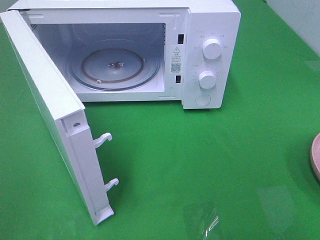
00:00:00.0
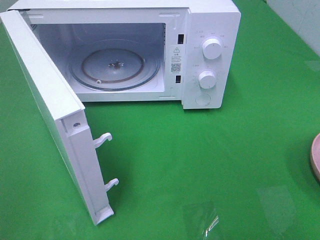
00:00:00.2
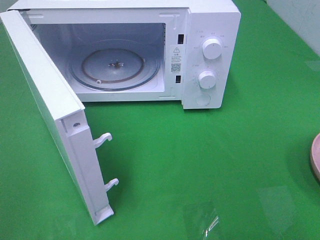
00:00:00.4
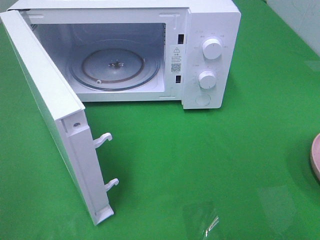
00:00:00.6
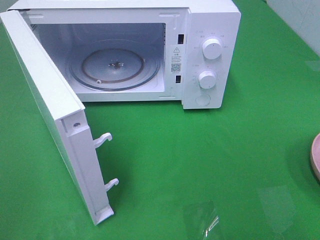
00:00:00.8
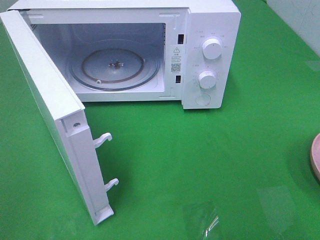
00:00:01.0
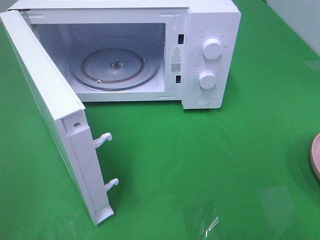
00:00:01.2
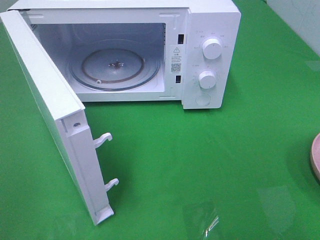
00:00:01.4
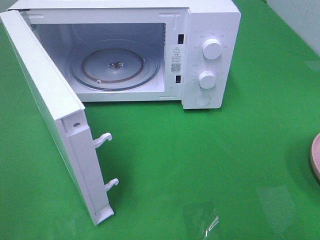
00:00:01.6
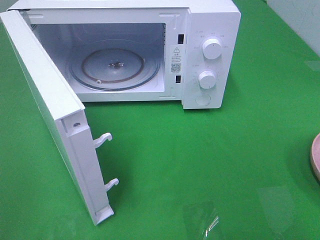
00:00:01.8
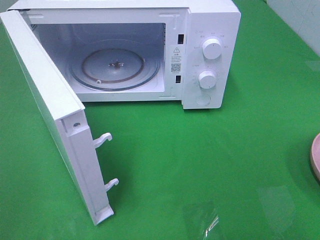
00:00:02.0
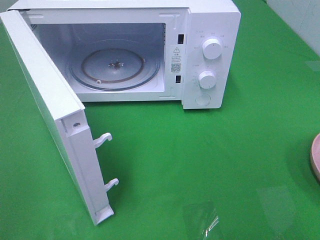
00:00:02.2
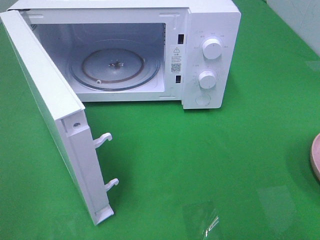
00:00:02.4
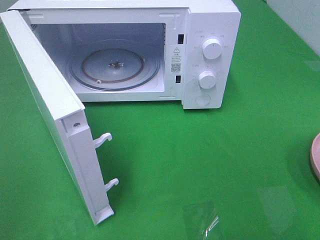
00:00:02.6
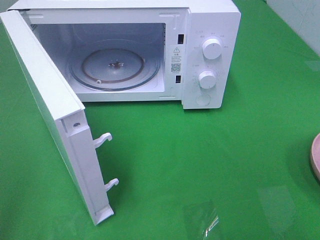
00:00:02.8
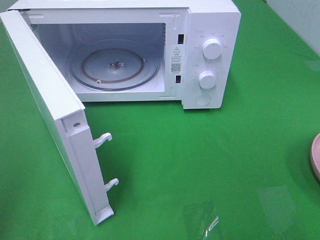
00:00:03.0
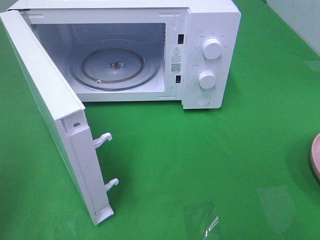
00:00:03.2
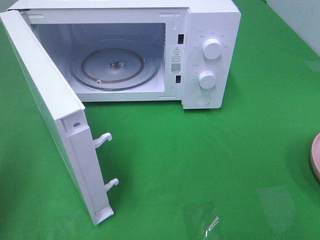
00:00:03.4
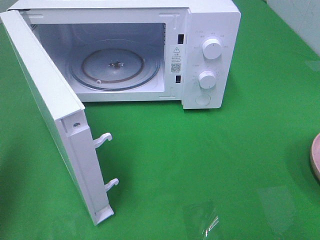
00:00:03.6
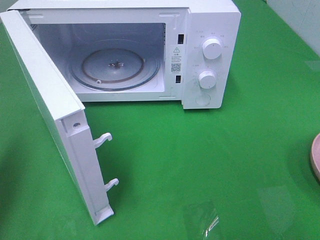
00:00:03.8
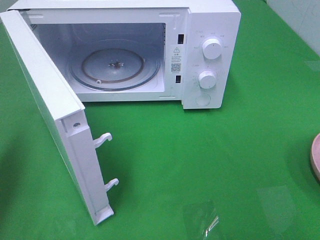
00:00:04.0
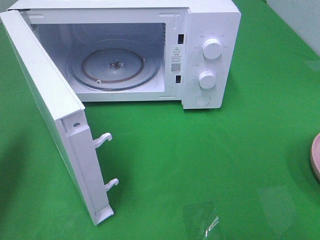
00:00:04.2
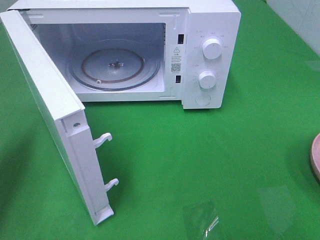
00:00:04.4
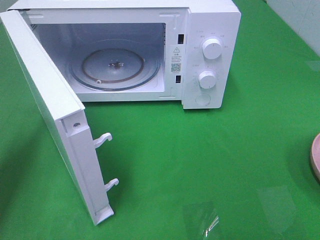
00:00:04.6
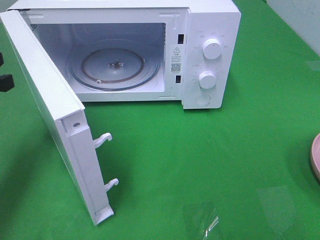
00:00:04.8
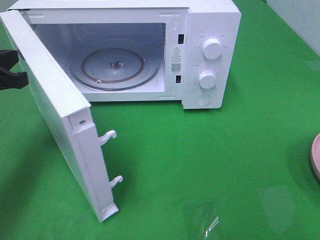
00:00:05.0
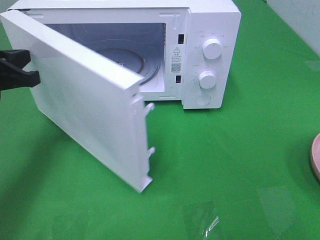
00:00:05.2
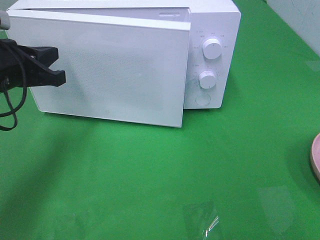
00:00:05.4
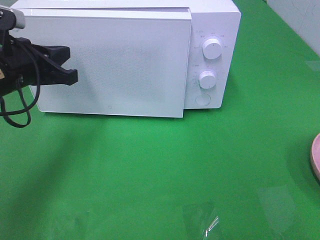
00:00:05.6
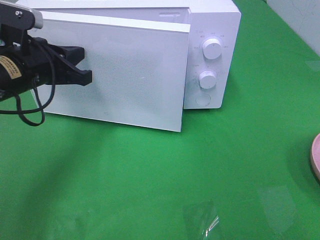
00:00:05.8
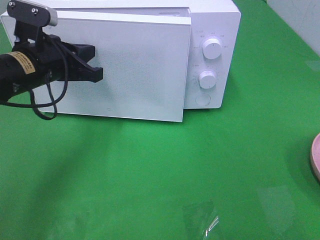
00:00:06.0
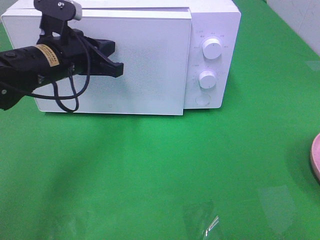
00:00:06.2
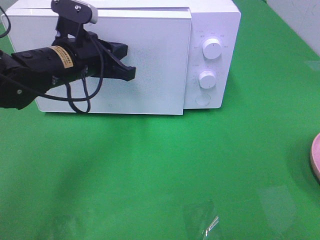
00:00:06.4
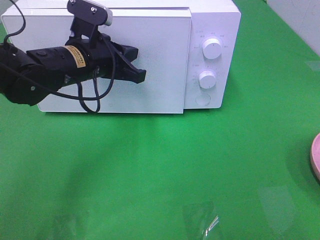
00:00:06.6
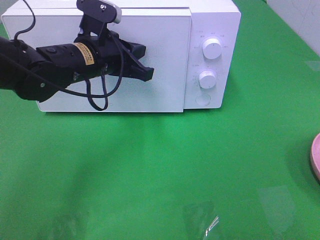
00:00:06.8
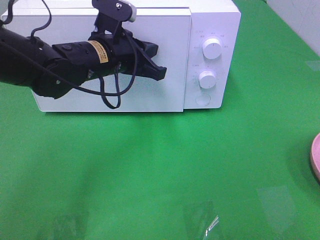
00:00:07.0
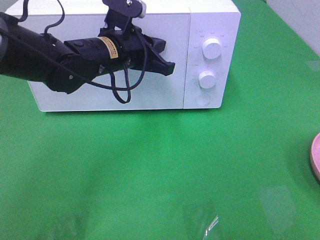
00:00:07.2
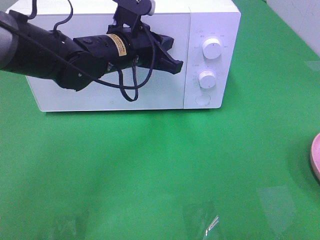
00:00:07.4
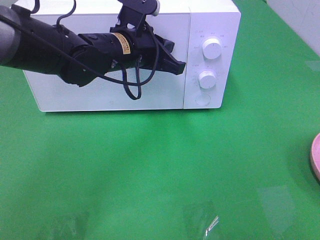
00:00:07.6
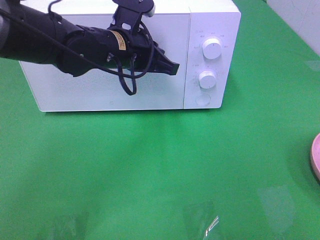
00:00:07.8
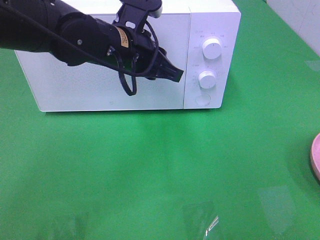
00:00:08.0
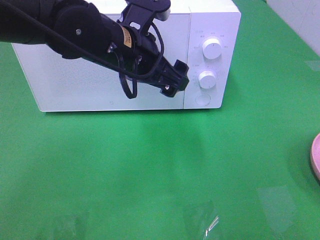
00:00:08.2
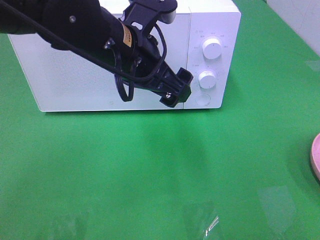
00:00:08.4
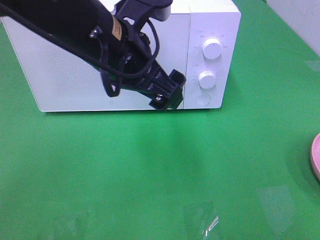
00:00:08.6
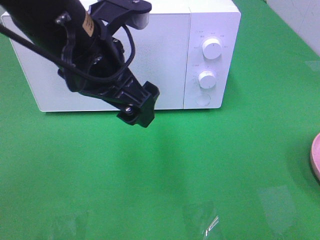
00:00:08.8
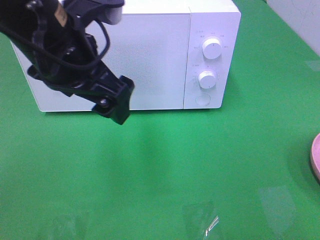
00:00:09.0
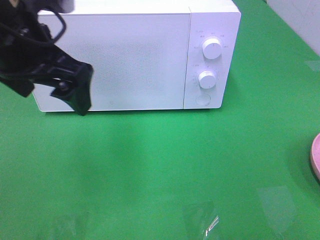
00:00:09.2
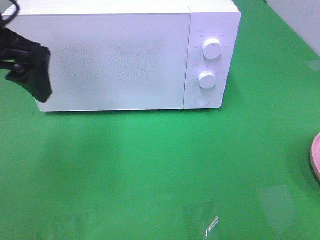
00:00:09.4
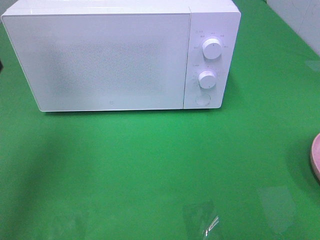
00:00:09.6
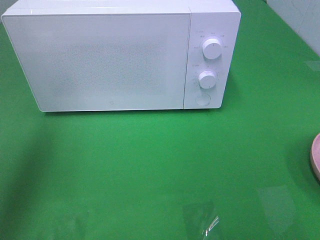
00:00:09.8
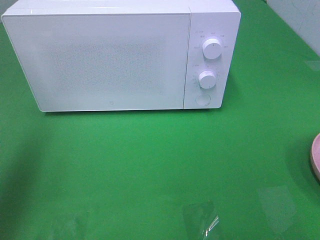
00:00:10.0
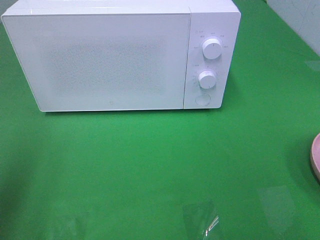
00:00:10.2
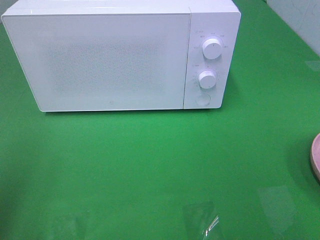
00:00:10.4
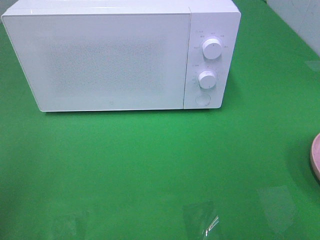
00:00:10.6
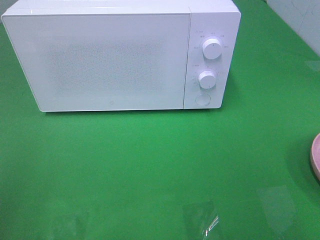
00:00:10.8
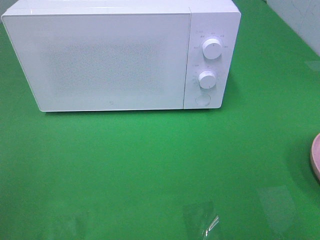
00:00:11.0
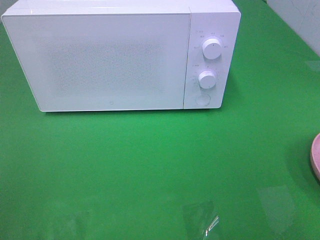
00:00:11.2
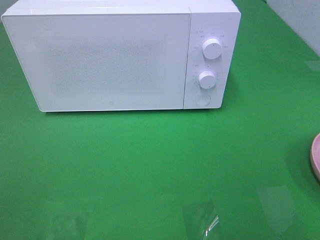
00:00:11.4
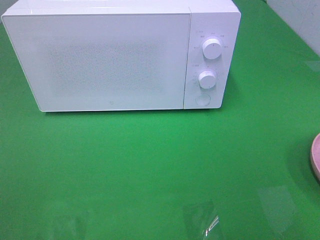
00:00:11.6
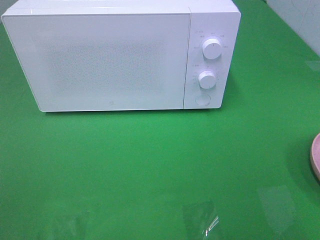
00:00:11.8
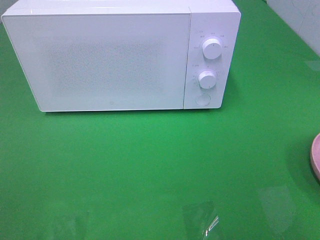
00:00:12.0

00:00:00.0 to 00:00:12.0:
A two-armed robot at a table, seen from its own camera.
Task of the whole recording: Heat the burger.
Step, 00:00:00.0 to 00:00:07.8: Left hand: close the microwave door.
00:00:00.0 to 00:00:01.6: Neither gripper changes place.
00:00:03.0 to 00:00:04.4: The left gripper travels forward and downward by about 20 cm.
00:00:04.4 to 00:00:06.0: The left gripper travels to the right and forward by approximately 15 cm.
00:00:06.0 to 00:00:07.6: The left gripper is displaced to the right by some 10 cm.
00:00:07.6 to 00:00:09.0: The left gripper travels backward, upward and to the left by some 15 cm, and opens up.
00:00:09.0 to 00:00:10.4: The left gripper goes some 25 cm to the left and backward.

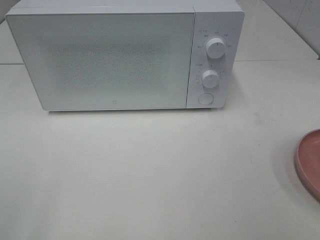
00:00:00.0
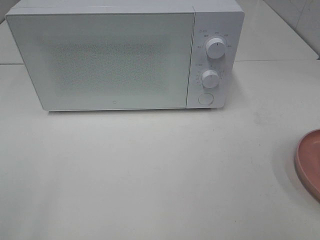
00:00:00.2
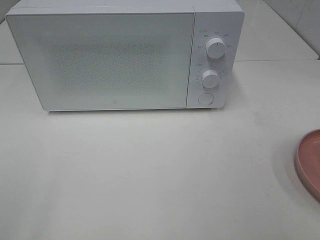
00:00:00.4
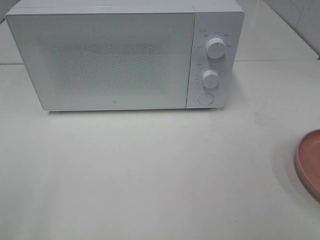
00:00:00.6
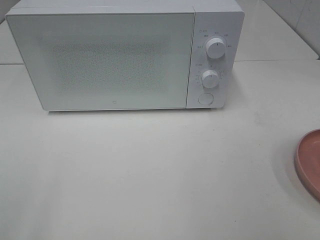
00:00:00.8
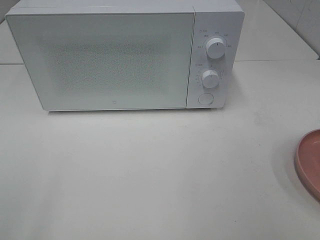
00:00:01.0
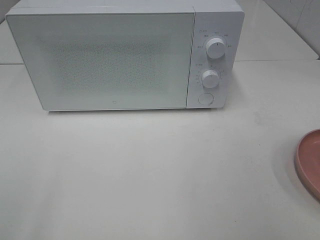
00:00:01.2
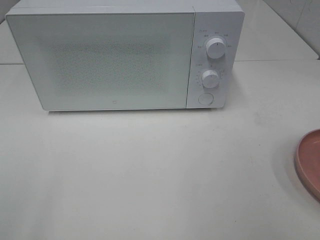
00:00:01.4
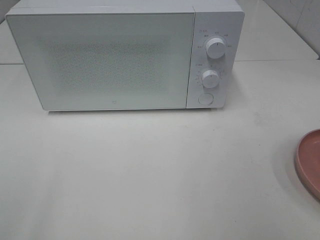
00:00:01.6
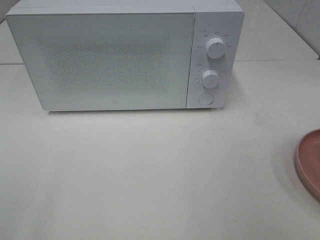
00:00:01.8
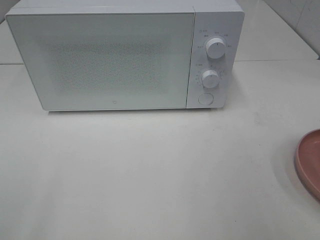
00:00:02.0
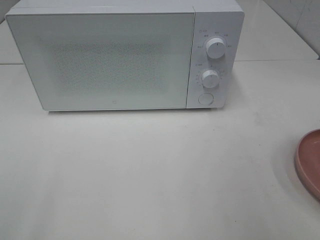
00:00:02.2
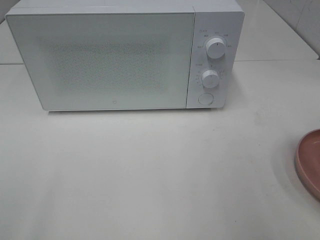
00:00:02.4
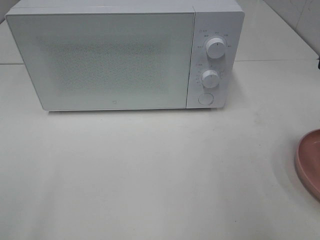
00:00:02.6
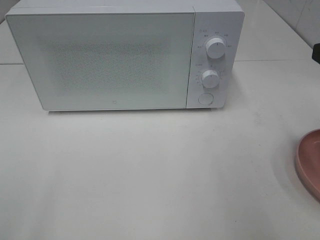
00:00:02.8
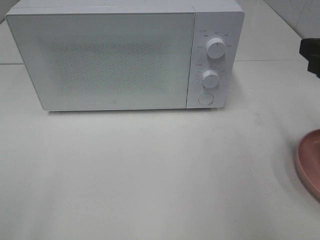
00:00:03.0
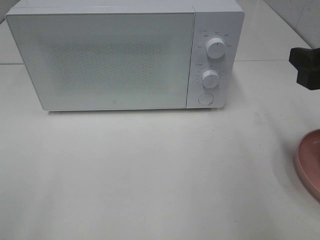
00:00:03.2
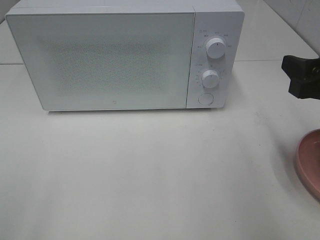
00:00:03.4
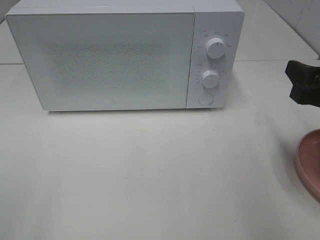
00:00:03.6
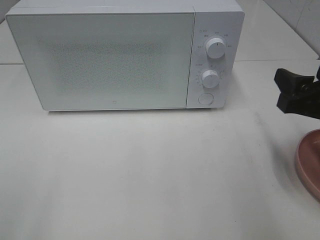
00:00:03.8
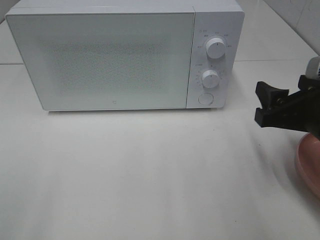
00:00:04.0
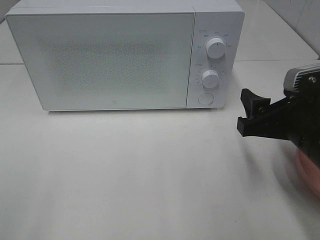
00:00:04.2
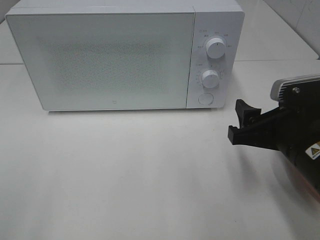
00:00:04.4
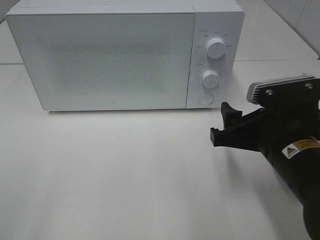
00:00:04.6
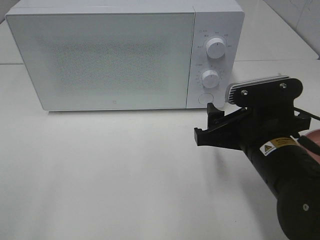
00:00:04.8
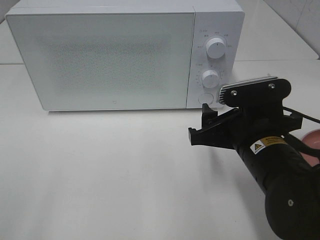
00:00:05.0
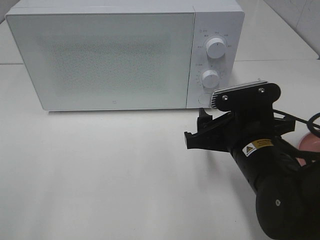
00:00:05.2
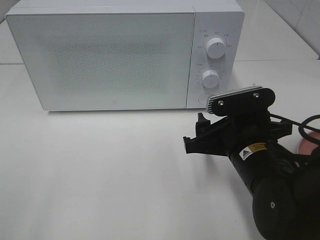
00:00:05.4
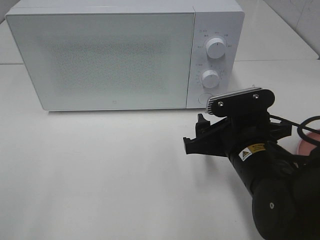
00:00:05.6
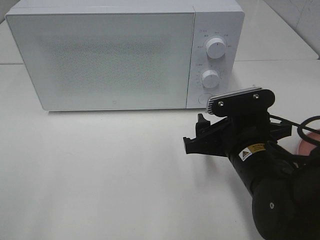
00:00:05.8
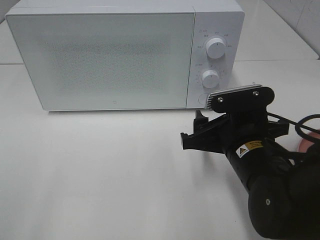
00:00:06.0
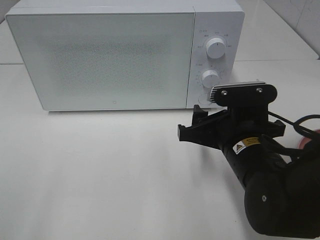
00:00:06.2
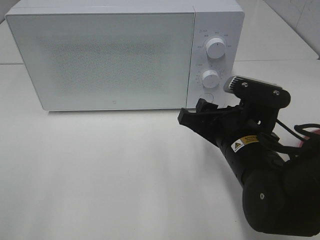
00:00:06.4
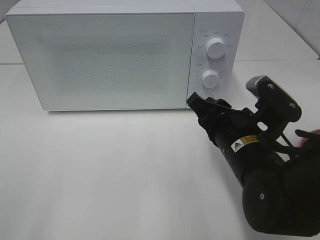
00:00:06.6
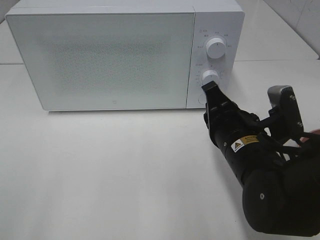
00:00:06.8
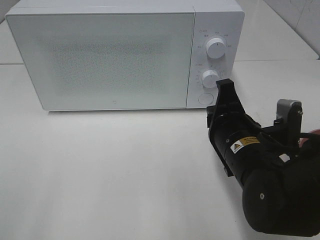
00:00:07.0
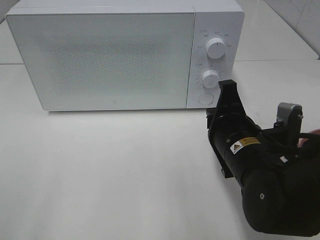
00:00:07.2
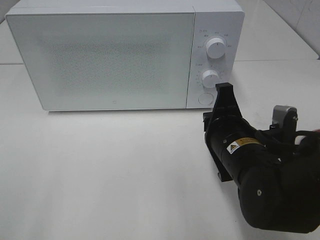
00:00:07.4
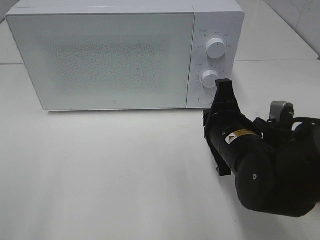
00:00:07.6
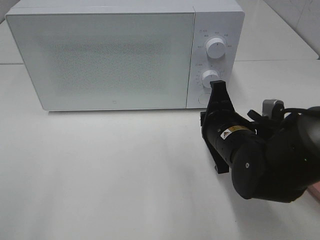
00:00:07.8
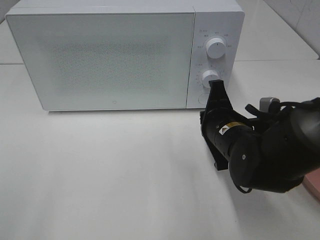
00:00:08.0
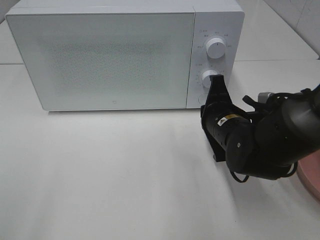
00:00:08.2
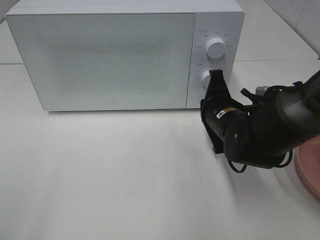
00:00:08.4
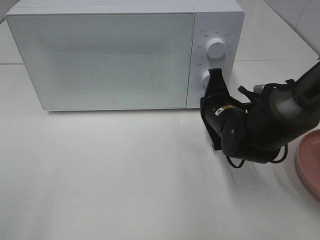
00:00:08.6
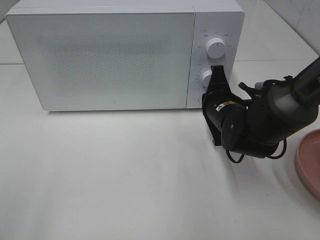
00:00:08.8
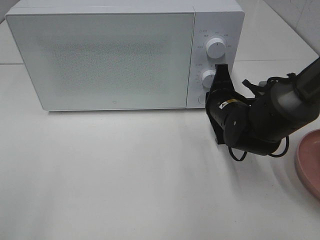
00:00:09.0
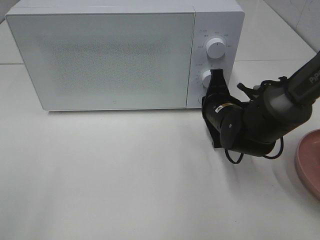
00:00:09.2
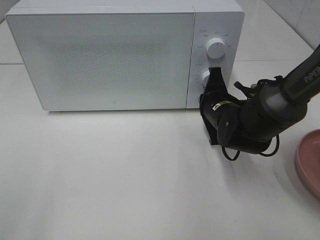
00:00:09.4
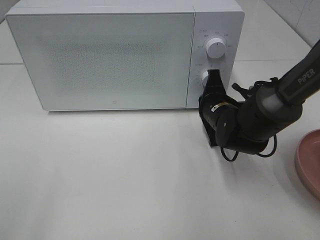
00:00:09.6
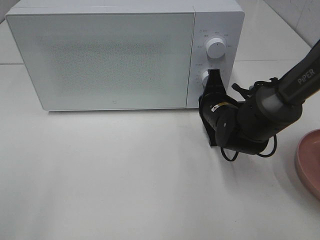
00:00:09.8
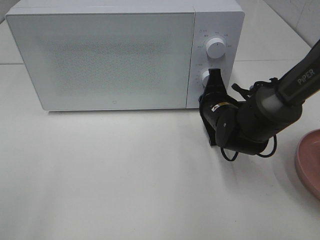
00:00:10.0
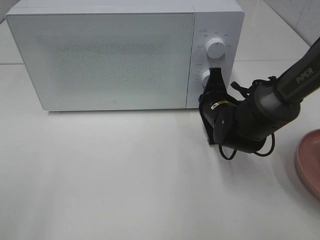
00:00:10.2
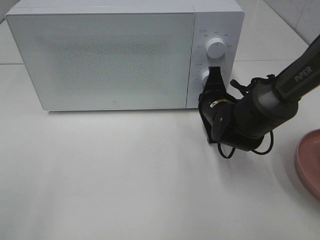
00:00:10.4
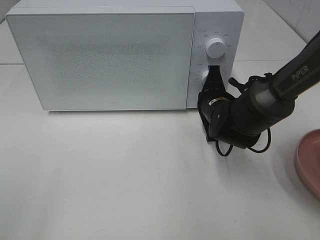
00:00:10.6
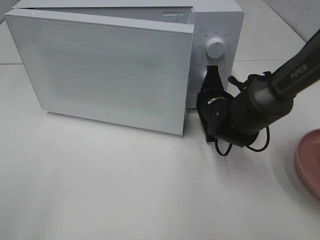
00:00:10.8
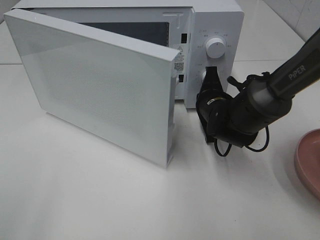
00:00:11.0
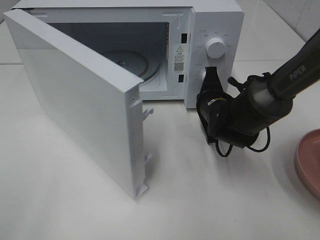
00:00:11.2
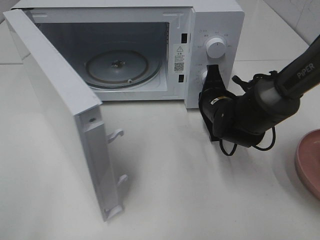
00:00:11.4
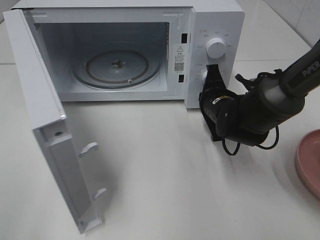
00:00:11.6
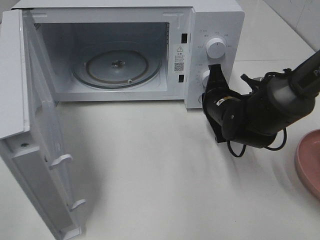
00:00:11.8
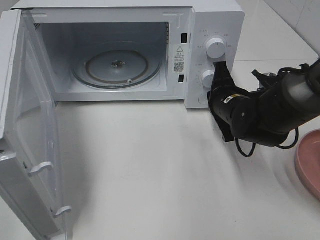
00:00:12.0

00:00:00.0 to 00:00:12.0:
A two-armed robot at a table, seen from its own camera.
Task of the whole recording: Heat the burger.
Step, 00:00:00.0 to 00:00:12.0: Right hand: press the switch.
00:00:01.6 to 00:00:03.0: The right gripper moves forward, about 15 cm.
00:00:03.0 to 00:00:04.4: The right gripper moves downward and to the left, some 15 cm.
00:00:04.4 to 00:00:06.0: The right gripper travels to the left by about 5 cm.
00:00:06.0 to 00:00:07.6: The right gripper closes its fingers.
00:00:07.6 to 00:00:09.0: The right gripper shifts about 10 cm forward.
00:00:09.0 to 00:00:10.4: The grippers stay close to where they were, moving slightly.
